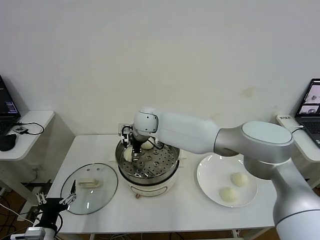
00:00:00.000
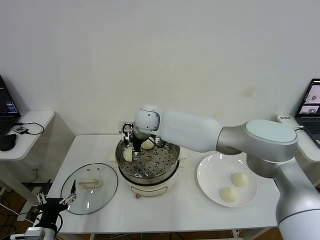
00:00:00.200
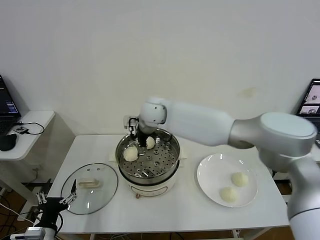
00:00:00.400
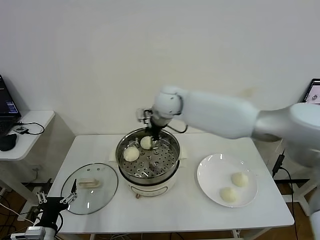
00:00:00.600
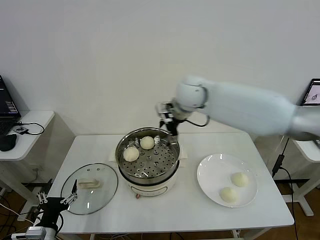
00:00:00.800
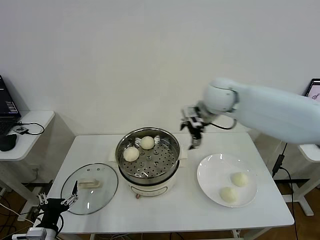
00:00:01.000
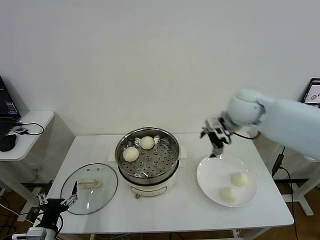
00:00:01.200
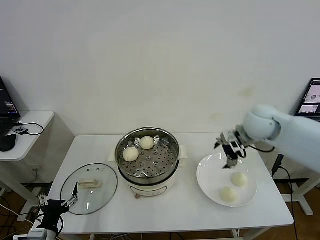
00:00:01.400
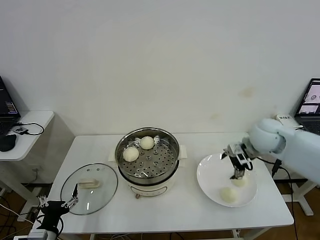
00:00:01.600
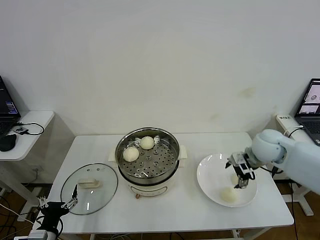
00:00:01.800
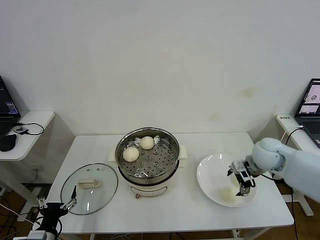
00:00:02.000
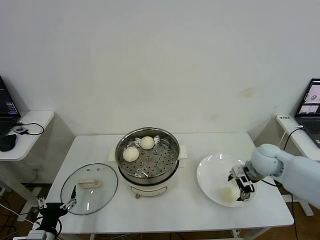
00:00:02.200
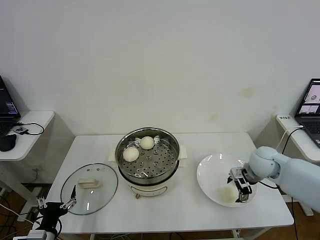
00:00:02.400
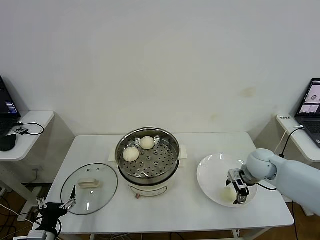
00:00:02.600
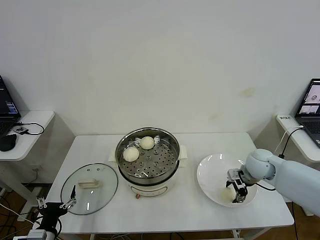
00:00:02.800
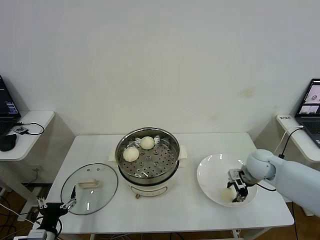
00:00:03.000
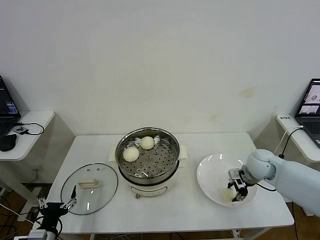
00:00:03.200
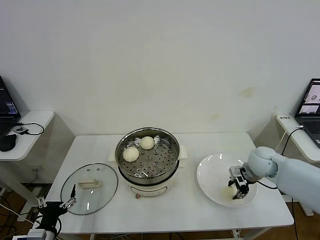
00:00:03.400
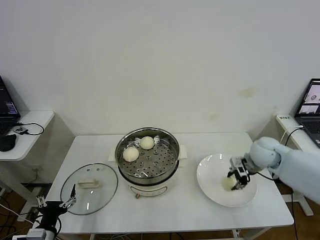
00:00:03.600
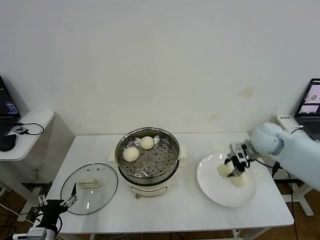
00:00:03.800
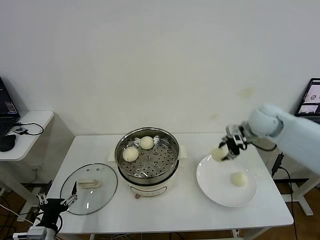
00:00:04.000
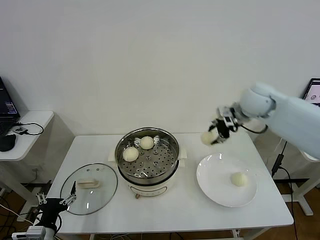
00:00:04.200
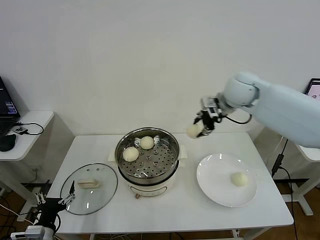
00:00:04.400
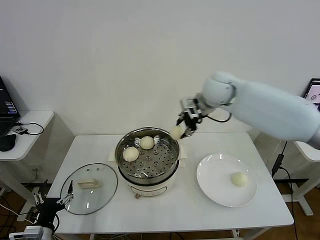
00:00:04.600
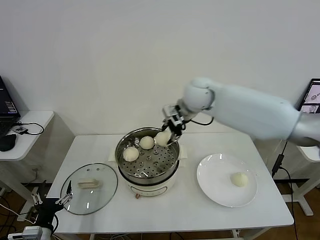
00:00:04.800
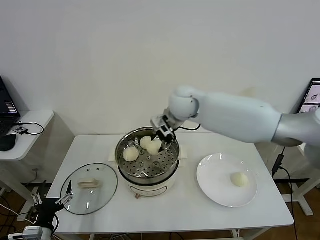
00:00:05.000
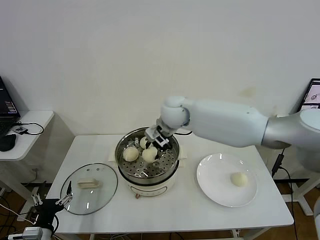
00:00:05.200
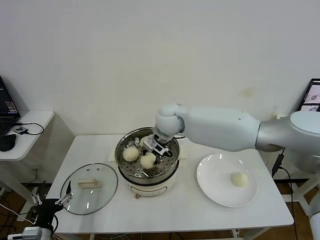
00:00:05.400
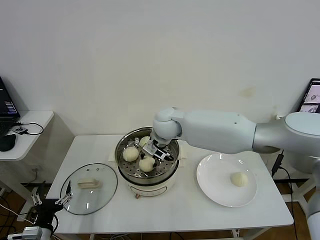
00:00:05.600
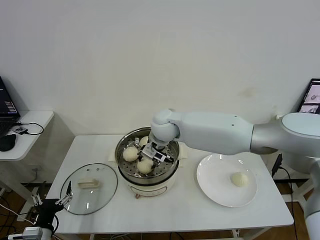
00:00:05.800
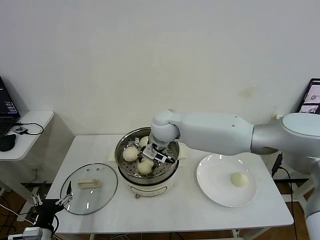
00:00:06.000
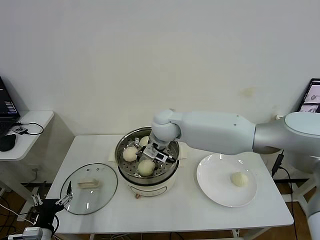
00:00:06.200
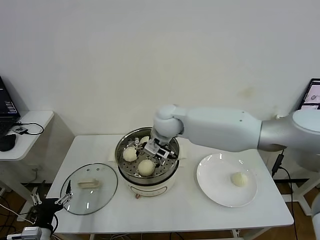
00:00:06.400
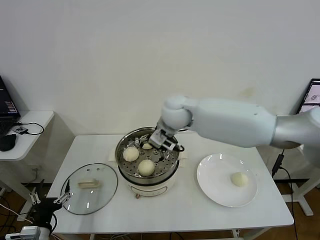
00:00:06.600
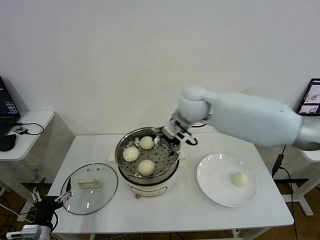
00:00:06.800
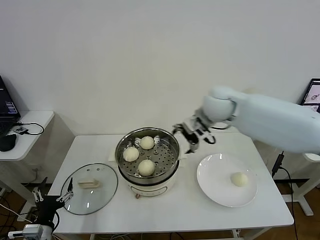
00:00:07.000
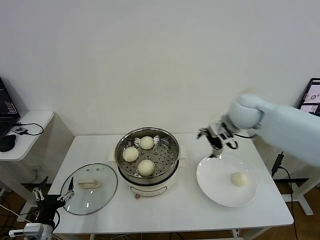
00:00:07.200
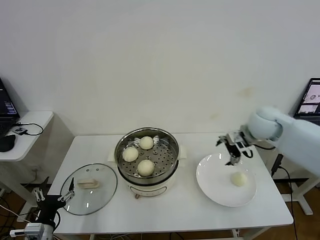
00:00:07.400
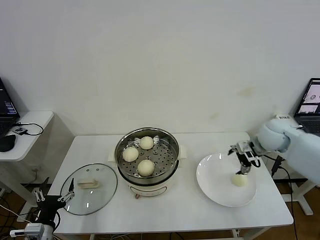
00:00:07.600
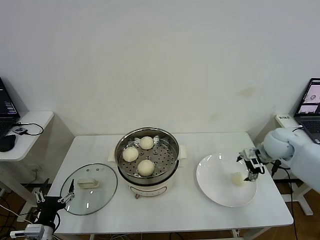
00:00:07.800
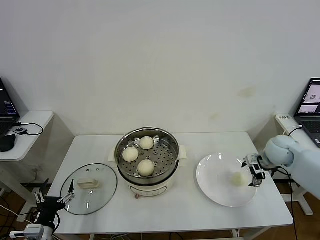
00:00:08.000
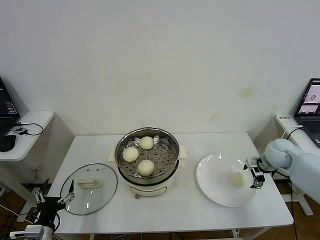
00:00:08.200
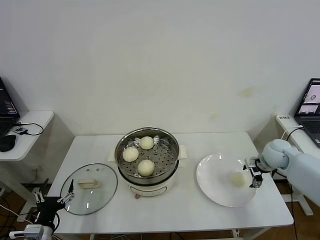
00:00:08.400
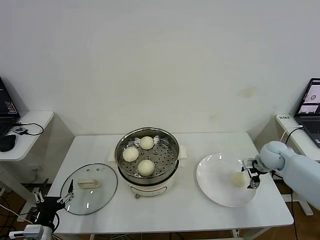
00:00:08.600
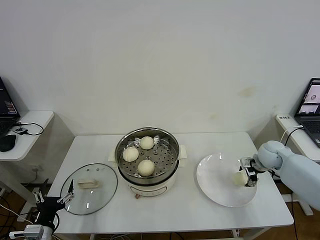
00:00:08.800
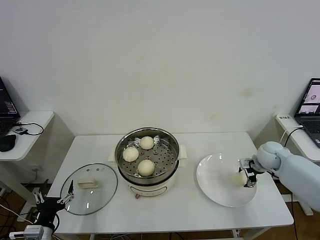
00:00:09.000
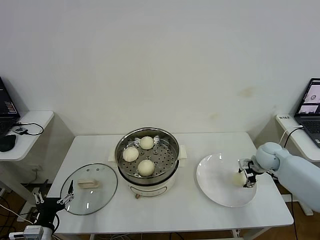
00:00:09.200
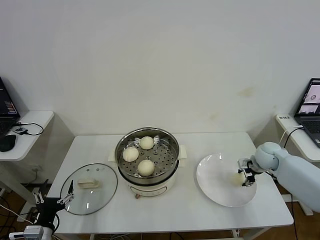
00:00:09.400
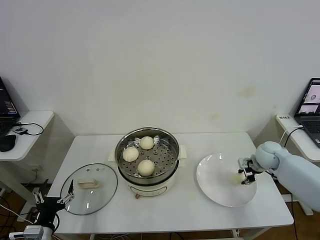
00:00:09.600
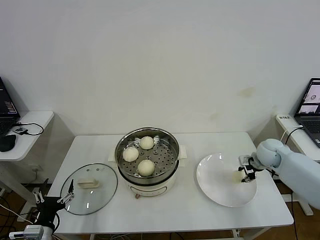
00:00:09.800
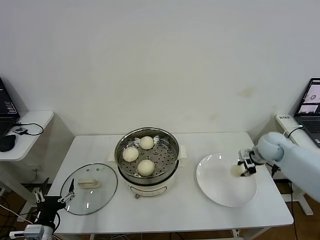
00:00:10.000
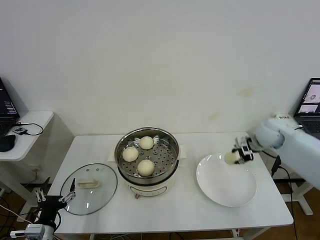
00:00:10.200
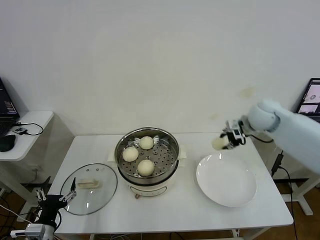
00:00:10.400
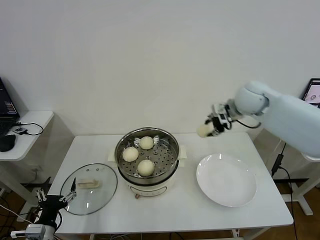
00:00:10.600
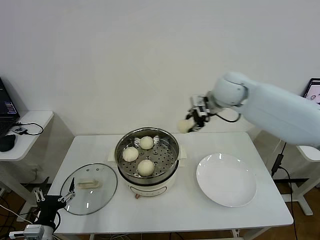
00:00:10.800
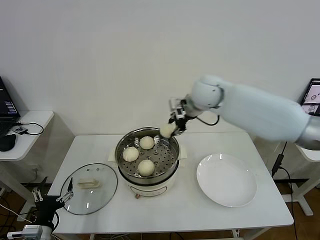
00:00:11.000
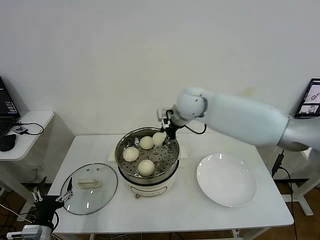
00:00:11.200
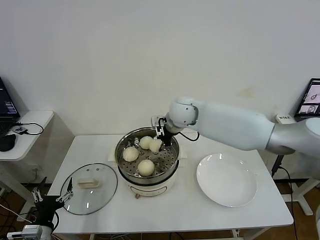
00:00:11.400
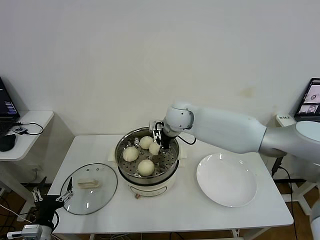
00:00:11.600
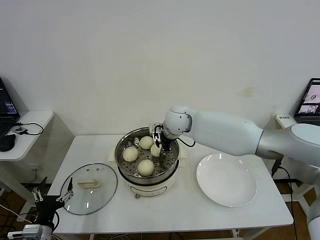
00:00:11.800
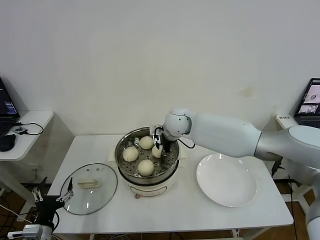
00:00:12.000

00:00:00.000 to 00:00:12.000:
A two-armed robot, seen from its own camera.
Step, 00:00:00.400 to 00:00:03.200: Grasp the baozi in the plate with right gripper.
Step, 00:00:03.400 to 00:00:06.200: Place the baozi on the steamer with right gripper.
Step, 00:00:06.400 to 00:00:09.600: Grasp the baozi in the plate with right gripper.
00:00:00.000 to 00:00:01.600: The right gripper moves to the right, about 35 cm.
00:00:01.600 to 00:00:03.000: The right gripper travels downward by about 10 cm, and closes.
00:00:03.000 to 00:00:04.400: The right gripper goes about 30 cm upward, to the left and forward.
00:00:04.400 to 00:00:06.000: The right gripper travels to the left and downward by roughly 20 cm.
00:00:06.000 to 00:00:07.600: The right gripper is displaced to the right by approximately 35 cm, and opens its fingers.
00:00:07.600 to 00:00:09.000: The right gripper shifts some 10 cm downward, and closes up.
00:00:09.000 to 00:00:10.400: The right gripper shifts about 20 cm upward and to the left, and closes its fingers.
00:00:10.400 to 00:00:12.000: The right gripper shifts approximately 25 cm to the left.

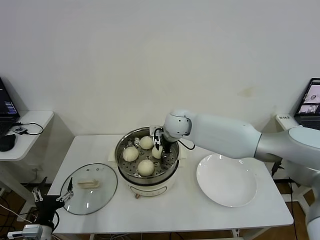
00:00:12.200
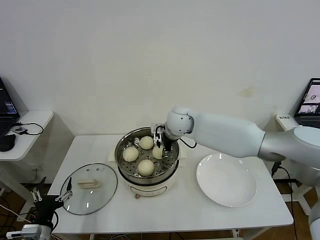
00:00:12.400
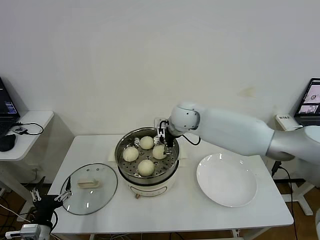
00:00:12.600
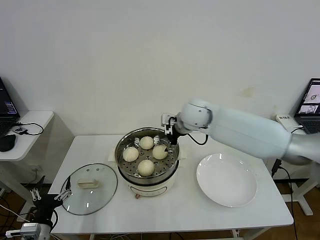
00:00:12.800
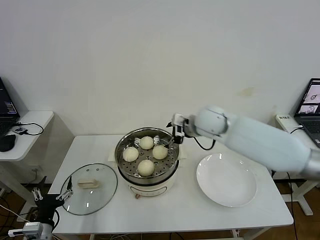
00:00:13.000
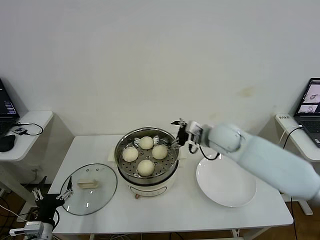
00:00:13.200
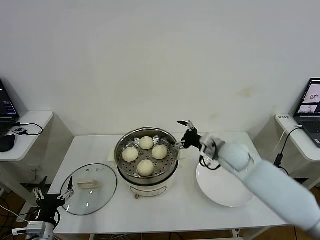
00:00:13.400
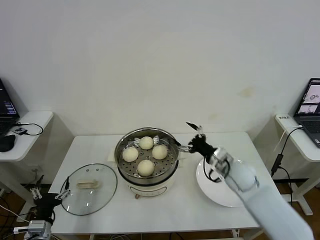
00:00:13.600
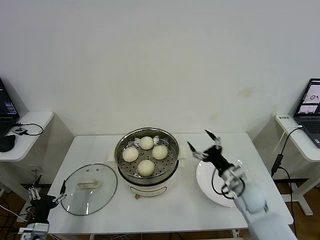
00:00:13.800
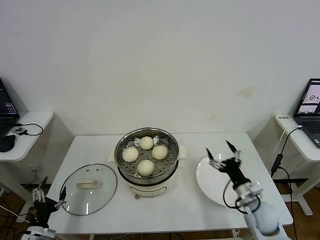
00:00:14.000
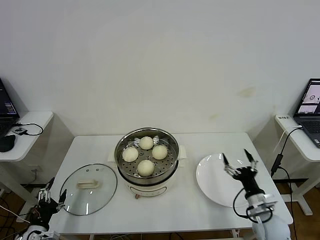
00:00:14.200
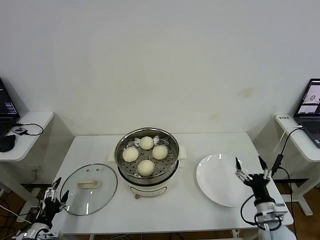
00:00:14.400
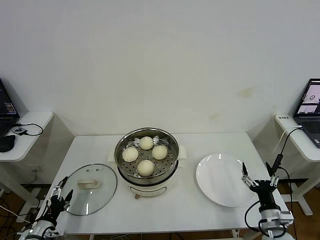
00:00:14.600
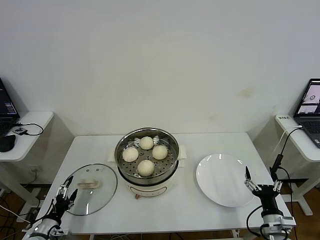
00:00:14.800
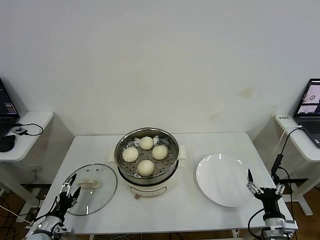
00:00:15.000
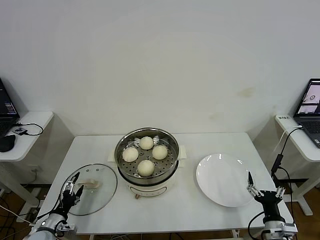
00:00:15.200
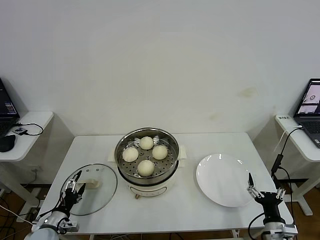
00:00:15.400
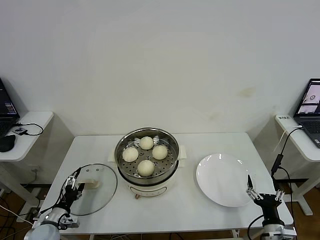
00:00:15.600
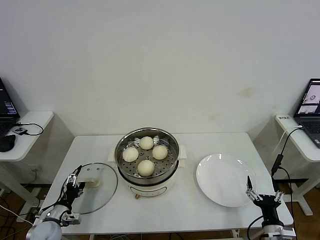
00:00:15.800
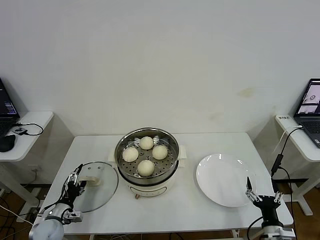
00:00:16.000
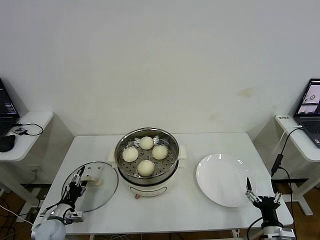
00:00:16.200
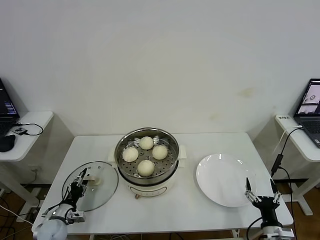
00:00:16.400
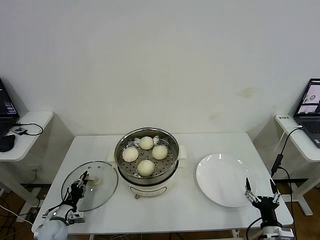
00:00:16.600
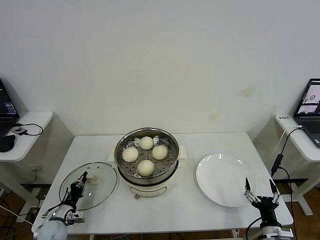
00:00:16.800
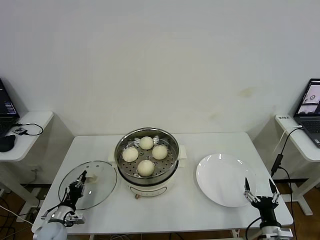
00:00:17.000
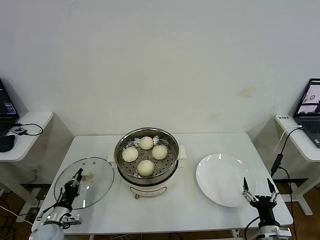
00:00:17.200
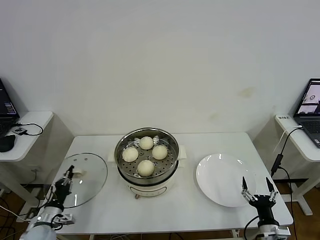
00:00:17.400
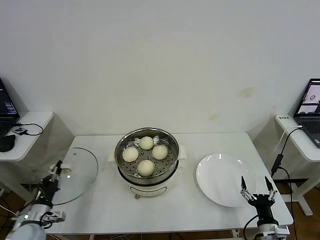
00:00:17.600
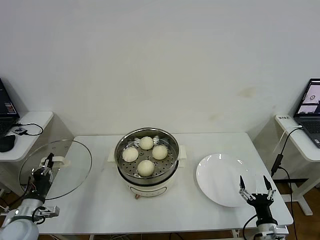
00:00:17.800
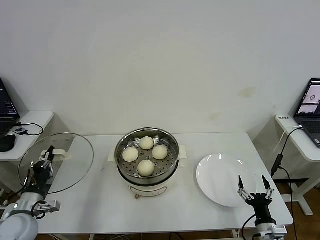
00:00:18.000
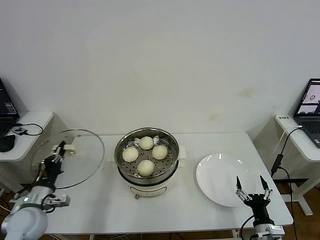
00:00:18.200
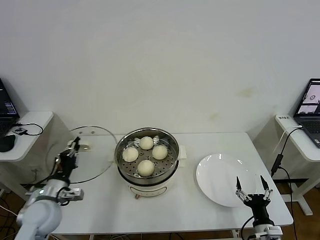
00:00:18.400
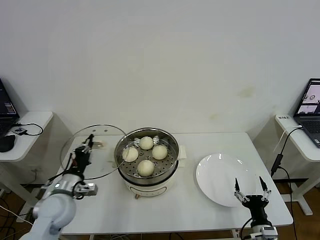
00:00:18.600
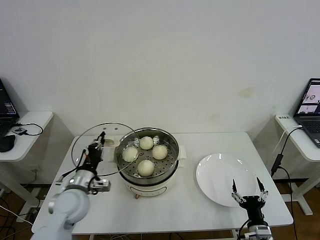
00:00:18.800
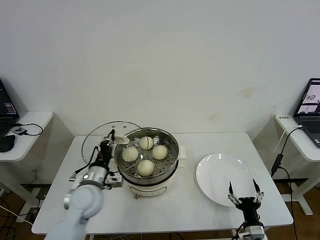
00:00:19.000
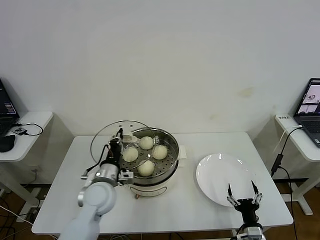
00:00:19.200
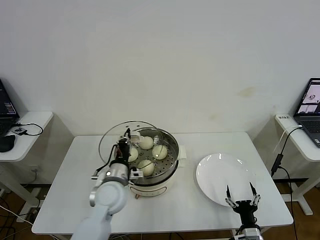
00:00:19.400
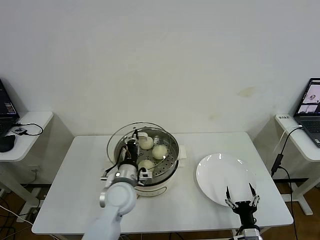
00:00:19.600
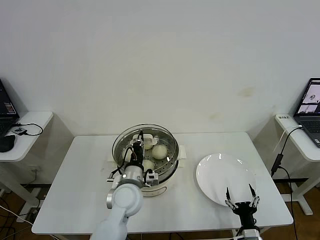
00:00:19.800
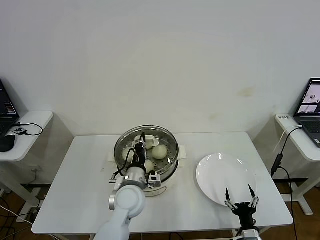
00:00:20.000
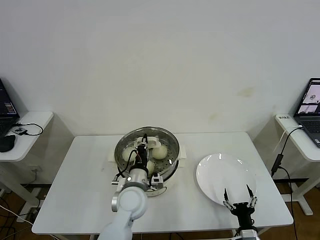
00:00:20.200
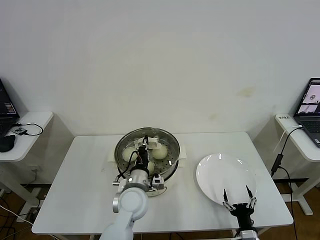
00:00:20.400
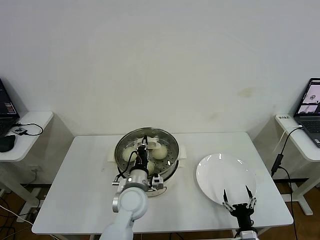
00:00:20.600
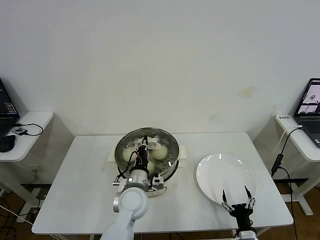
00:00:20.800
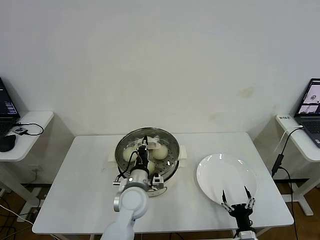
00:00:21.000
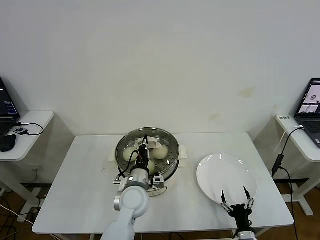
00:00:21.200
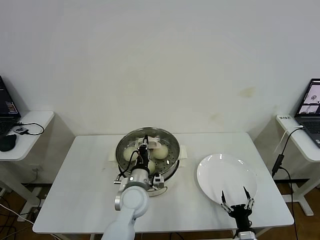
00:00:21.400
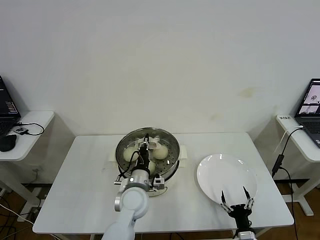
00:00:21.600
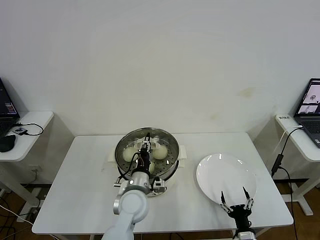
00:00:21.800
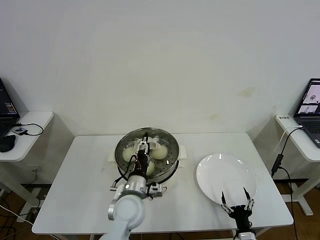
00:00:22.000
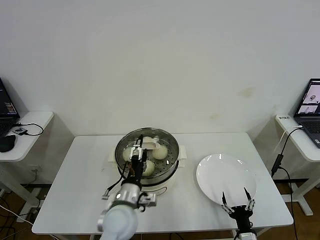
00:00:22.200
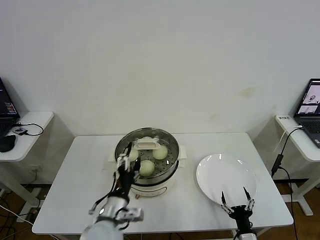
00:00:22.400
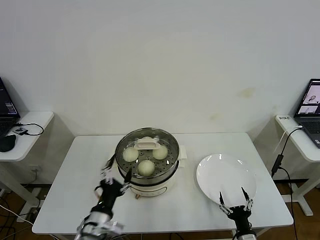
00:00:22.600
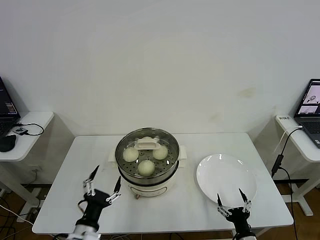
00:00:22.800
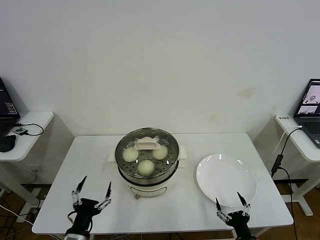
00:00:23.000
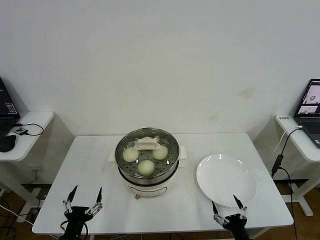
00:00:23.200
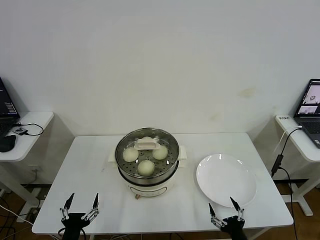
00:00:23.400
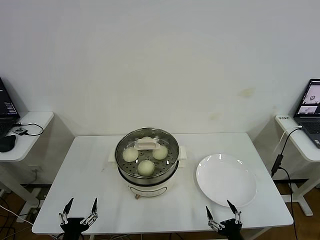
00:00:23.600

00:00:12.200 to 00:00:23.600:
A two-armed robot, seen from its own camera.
Step, 00:00:12.800 to 00:00:16.800: Grasp the pot lid with left gripper.
Step, 00:00:17.000 to 00:00:21.800: Place the pot lid on the steamer with left gripper.
00:00:12.200 to 00:00:13.600: The right gripper travels to the right, backward and downward by some 25 cm, and opens up.
00:00:13.600 to 00:00:15.000: The left gripper heads downward, covering approximately 5 cm. The right gripper is displaced backward, downward and to the right by roughly 25 cm.
00:00:15.000 to 00:00:16.400: The left gripper moves forward, some 5 cm, and closes.
00:00:16.400 to 00:00:17.800: The left gripper shifts some 10 cm upward, and closes its fingers.
00:00:17.800 to 00:00:19.400: The left gripper goes about 25 cm to the right, while the right gripper ends up some 5 cm from where it was.
00:00:19.400 to 00:00:20.800: The left gripper travels to the right by about 10 cm.
00:00:20.800 to 00:00:22.200: The left gripper moves roughly 5 cm, and opens its fingers.
00:00:22.200 to 00:00:23.600: The left gripper heads to the left, backward and downward, covering roughly 25 cm. The right gripper goes roughly 5 cm backward.
